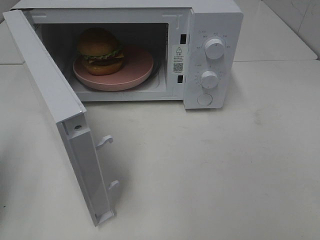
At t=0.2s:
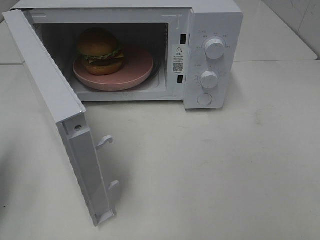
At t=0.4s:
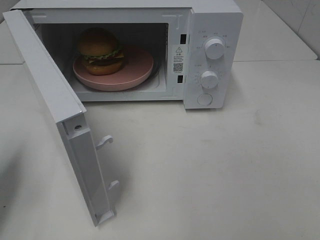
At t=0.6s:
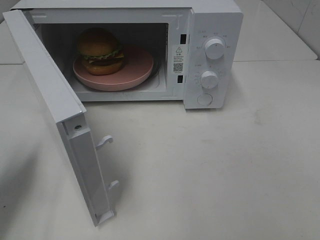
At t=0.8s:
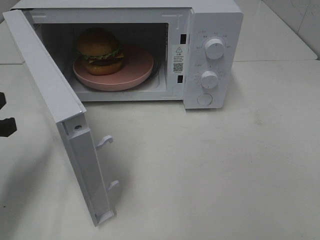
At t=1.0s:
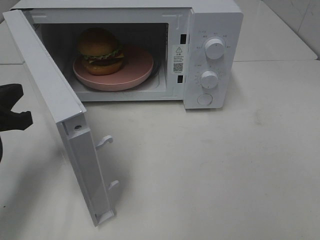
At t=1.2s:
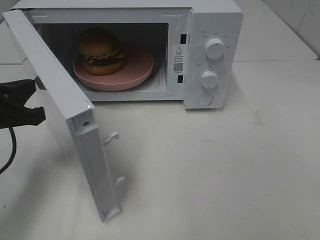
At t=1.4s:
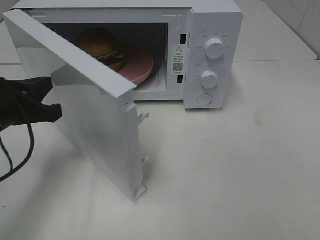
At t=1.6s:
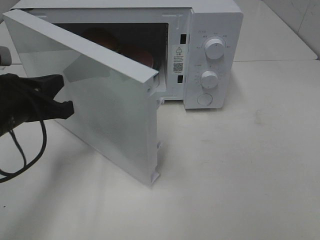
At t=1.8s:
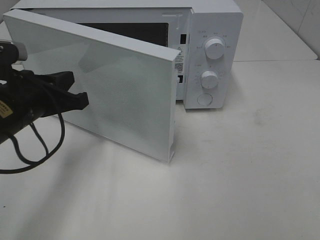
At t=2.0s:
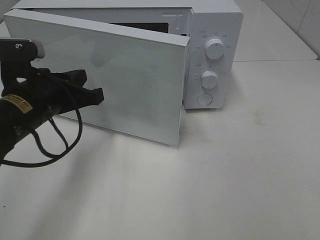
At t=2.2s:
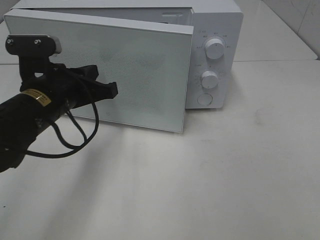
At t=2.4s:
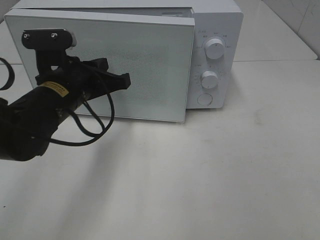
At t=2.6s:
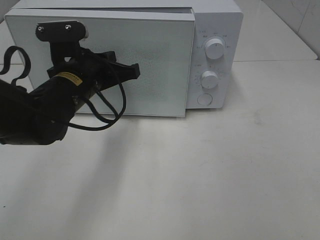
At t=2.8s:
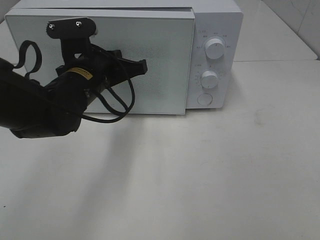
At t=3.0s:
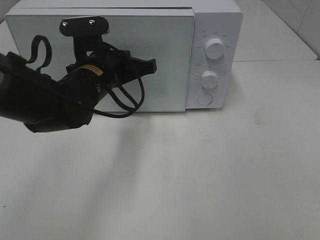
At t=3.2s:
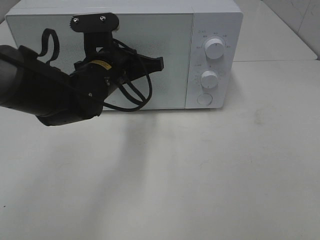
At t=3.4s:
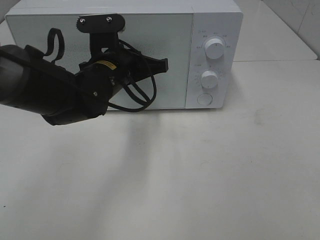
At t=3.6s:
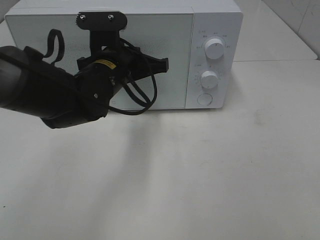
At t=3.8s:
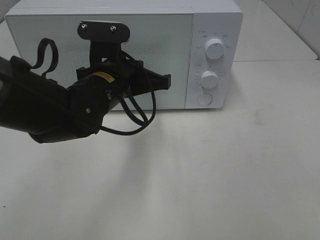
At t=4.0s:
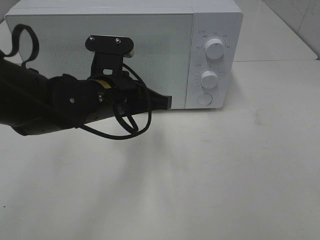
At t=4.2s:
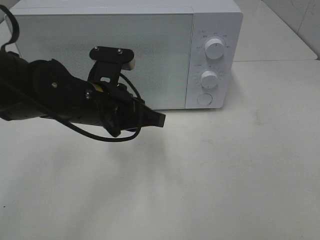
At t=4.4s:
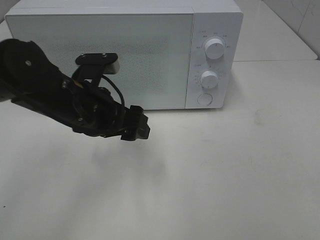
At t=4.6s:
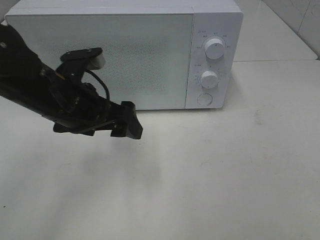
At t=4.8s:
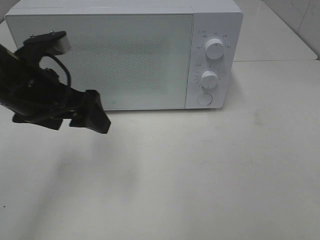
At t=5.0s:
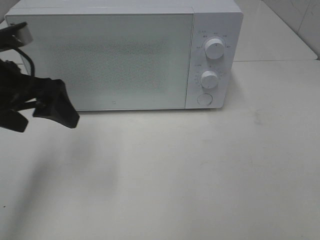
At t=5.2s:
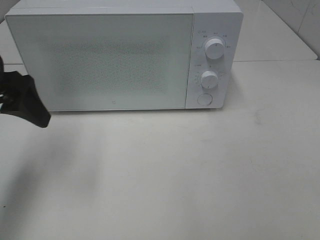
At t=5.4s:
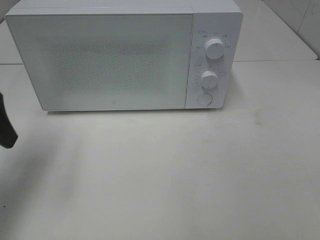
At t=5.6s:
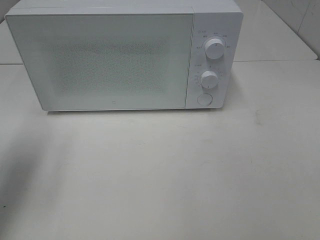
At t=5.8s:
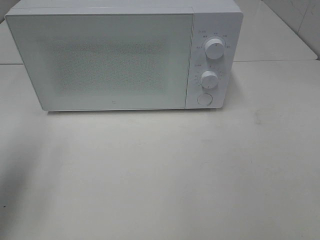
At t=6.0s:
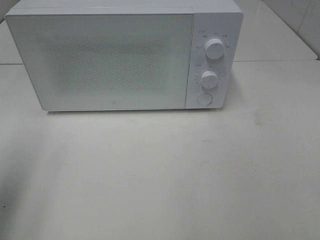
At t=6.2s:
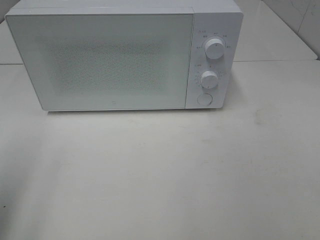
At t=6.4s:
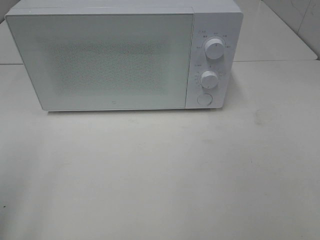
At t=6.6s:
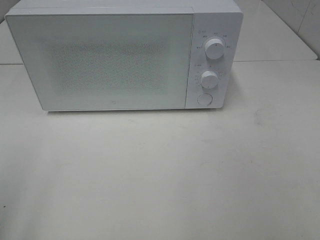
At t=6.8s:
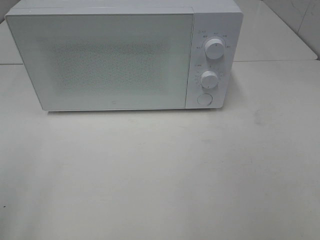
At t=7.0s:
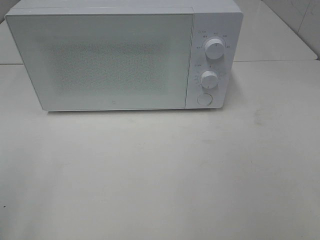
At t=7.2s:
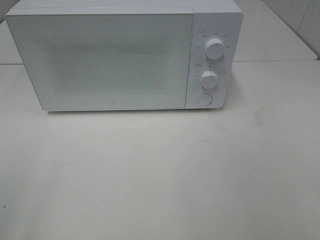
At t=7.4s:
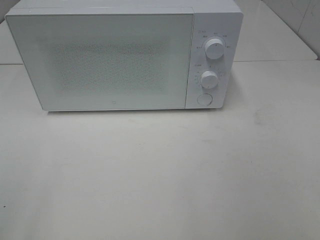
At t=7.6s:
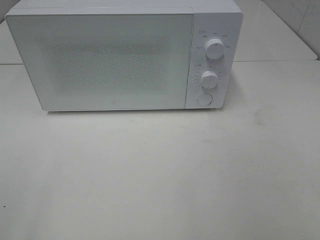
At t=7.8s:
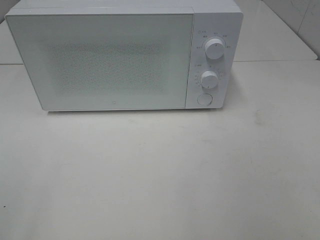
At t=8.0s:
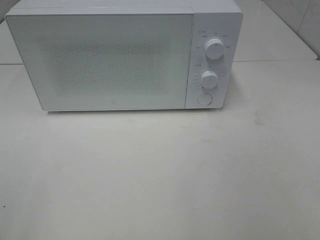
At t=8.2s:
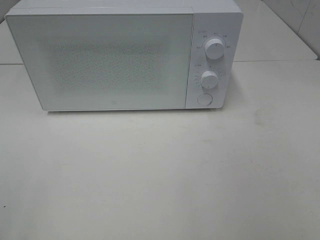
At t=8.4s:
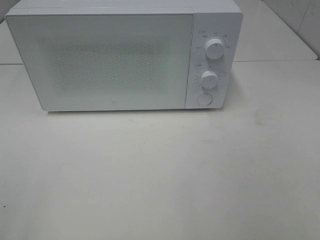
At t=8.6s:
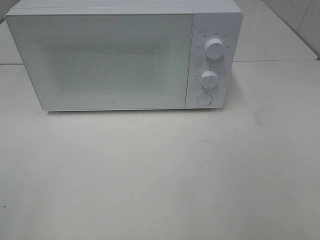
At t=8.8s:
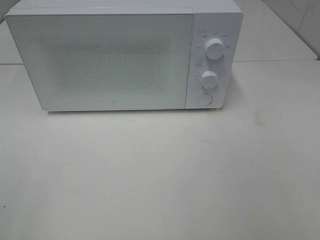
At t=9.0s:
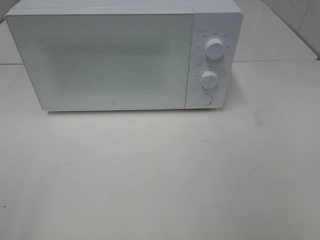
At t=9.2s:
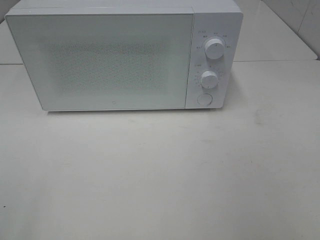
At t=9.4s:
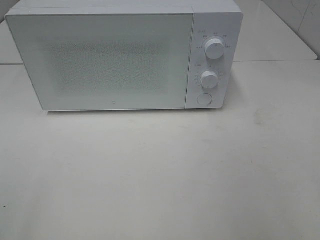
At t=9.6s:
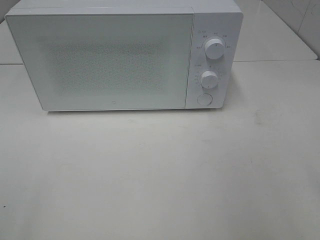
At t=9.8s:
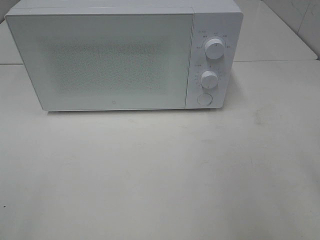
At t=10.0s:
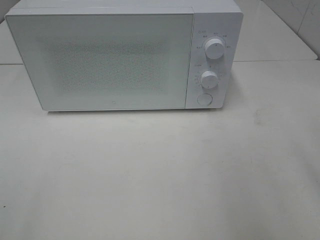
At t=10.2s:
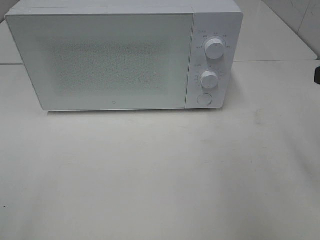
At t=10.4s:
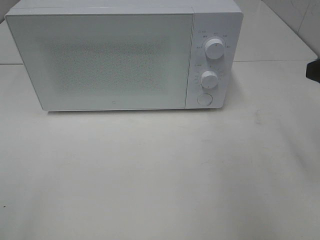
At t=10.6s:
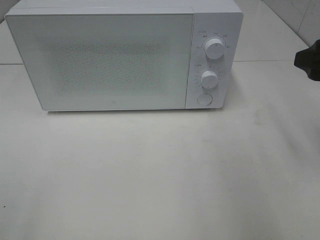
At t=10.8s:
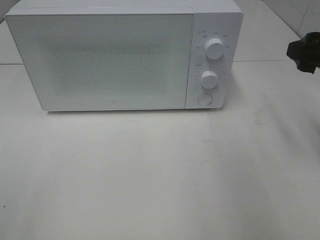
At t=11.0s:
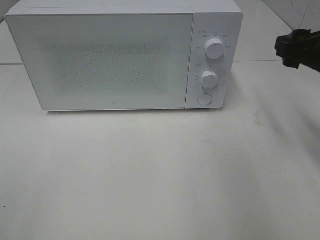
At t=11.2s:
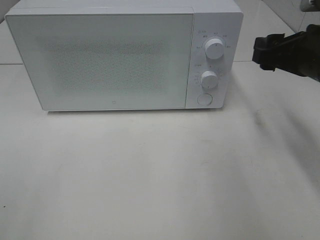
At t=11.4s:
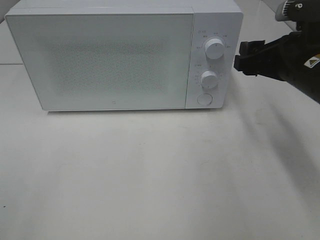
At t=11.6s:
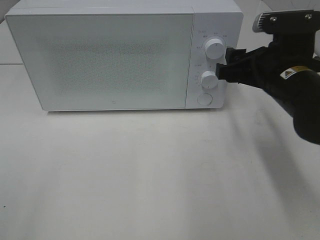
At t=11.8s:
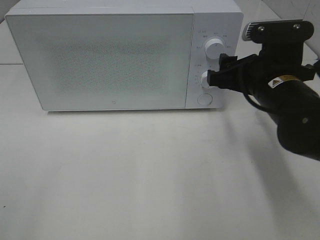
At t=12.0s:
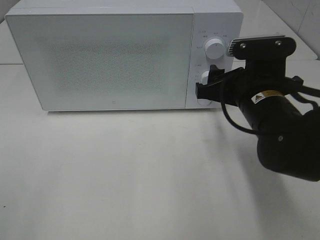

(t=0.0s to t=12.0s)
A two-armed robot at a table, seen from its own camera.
Task of the whole recording: Heat the burger.
Step, t=0.0s - t=4.2s: Left hand: close the microwave door.
t=0.0s - t=1.6s: The left gripper travels to the right, forward and downward by roughly 15 cm.
t=1.6s - t=3.0s: The left gripper moves to the right and forward, some 15 cm.
t=3.0s - t=4.4s: The left gripper is displaced backward by about 5 cm, and opens.
t=4.4s - t=6.0s: The left gripper is displaced to the left, upward and backward by some 25 cm.
t=6.0s - t=7.6s: The left gripper is displaced backward by roughly 15 cm.
t=10.4s - t=12.0s: The right gripper heads to the left, downward and forward, covering roughly 20 cm.

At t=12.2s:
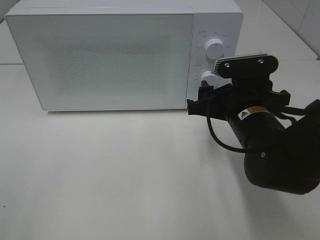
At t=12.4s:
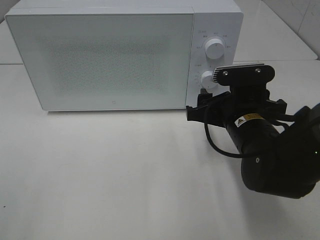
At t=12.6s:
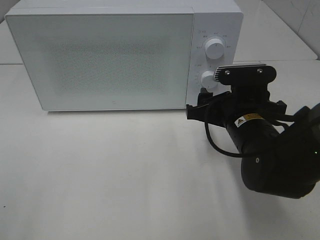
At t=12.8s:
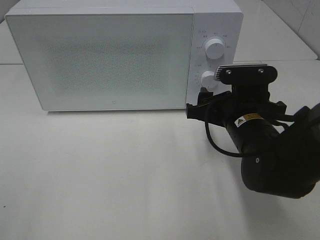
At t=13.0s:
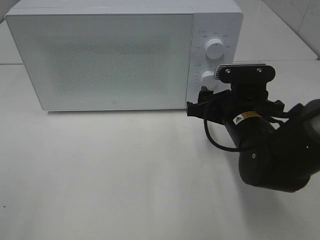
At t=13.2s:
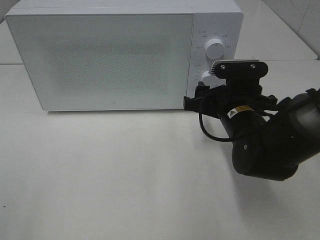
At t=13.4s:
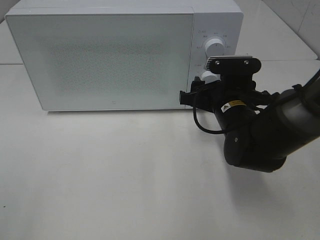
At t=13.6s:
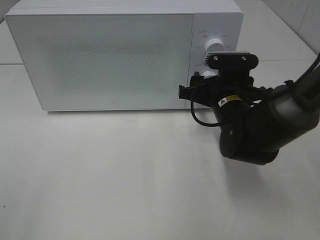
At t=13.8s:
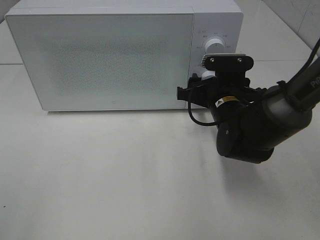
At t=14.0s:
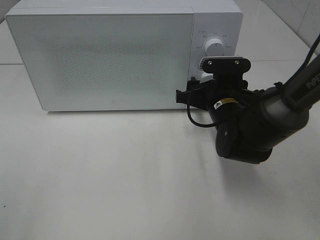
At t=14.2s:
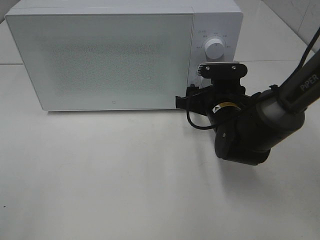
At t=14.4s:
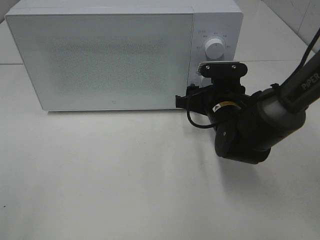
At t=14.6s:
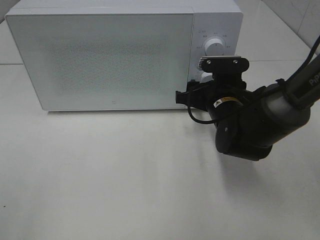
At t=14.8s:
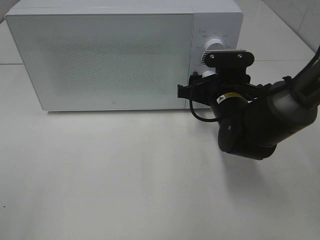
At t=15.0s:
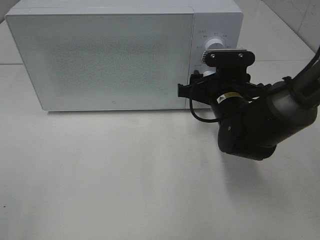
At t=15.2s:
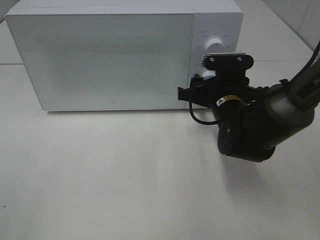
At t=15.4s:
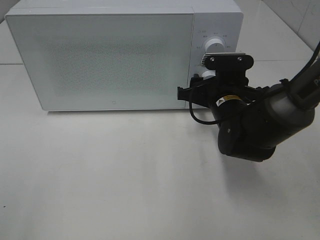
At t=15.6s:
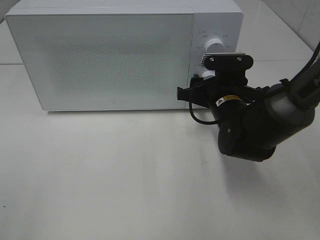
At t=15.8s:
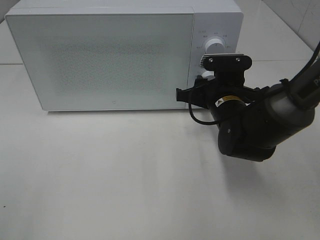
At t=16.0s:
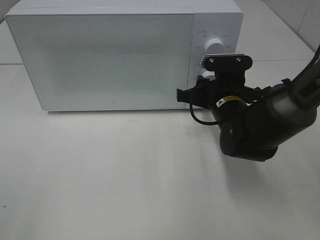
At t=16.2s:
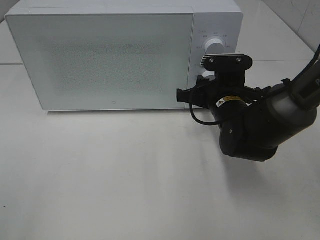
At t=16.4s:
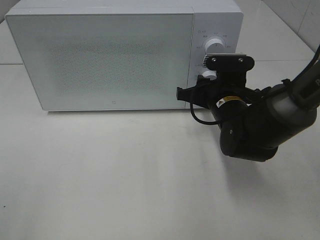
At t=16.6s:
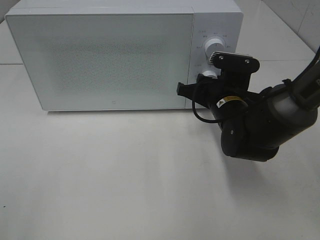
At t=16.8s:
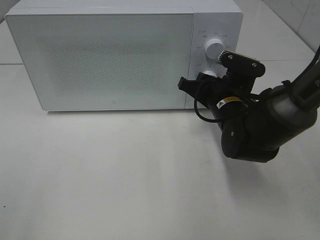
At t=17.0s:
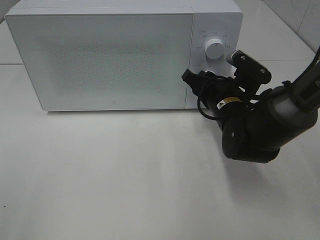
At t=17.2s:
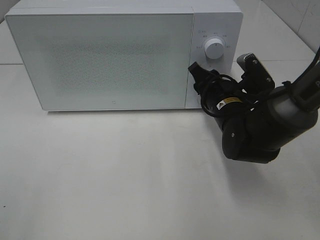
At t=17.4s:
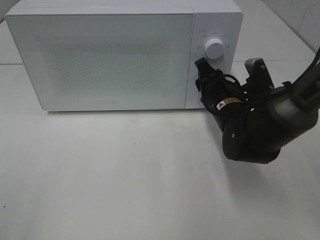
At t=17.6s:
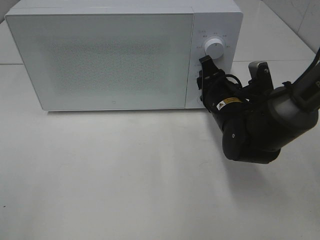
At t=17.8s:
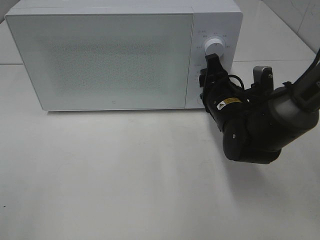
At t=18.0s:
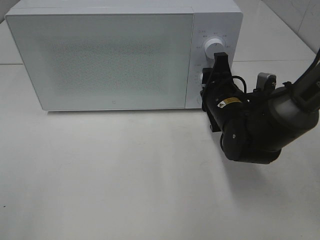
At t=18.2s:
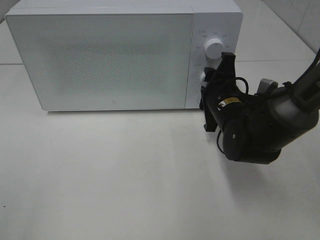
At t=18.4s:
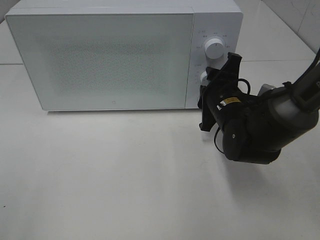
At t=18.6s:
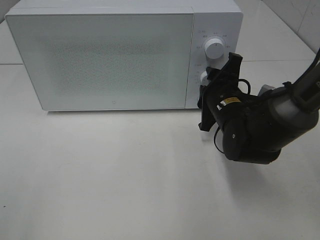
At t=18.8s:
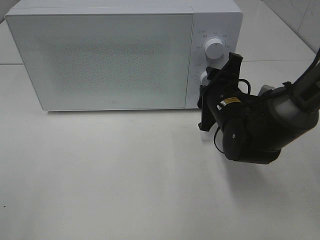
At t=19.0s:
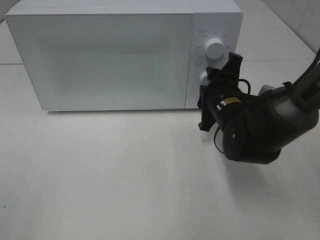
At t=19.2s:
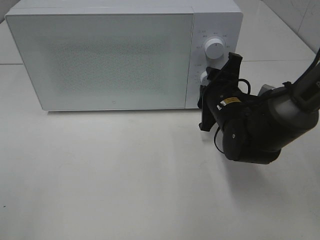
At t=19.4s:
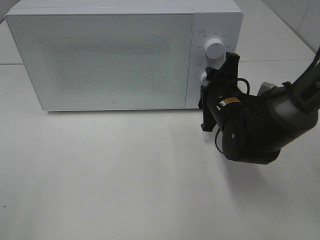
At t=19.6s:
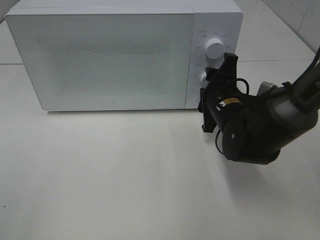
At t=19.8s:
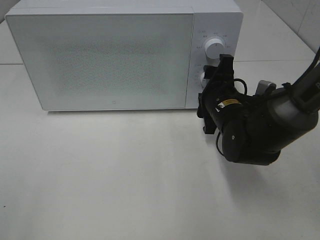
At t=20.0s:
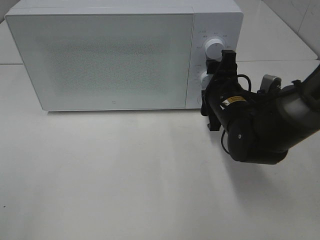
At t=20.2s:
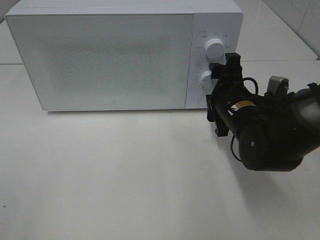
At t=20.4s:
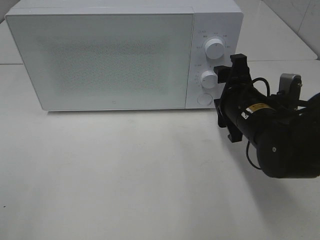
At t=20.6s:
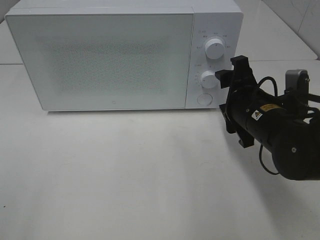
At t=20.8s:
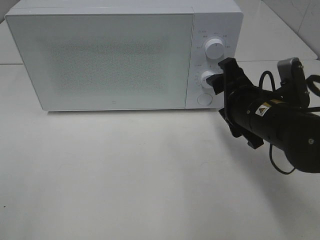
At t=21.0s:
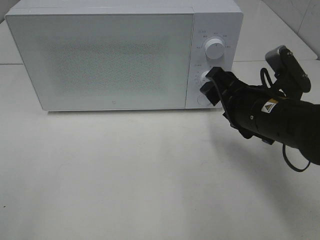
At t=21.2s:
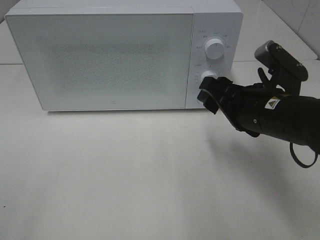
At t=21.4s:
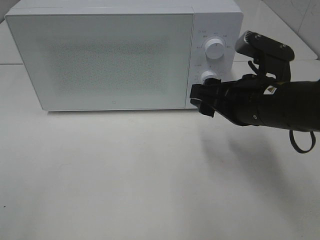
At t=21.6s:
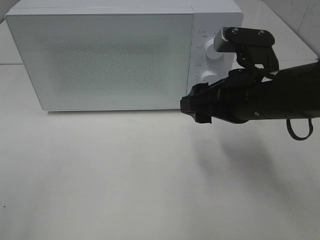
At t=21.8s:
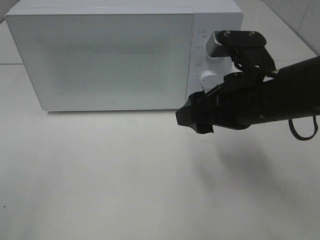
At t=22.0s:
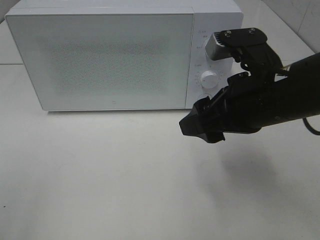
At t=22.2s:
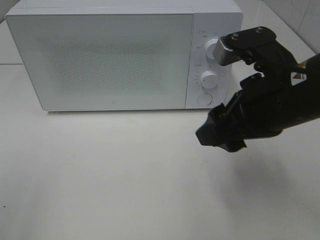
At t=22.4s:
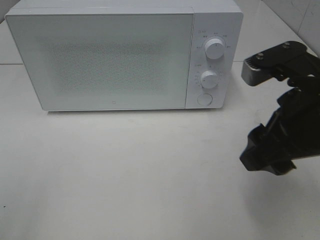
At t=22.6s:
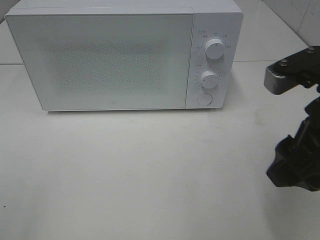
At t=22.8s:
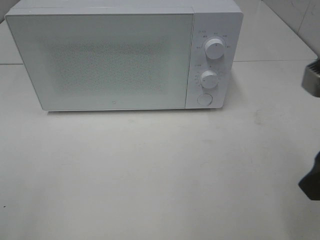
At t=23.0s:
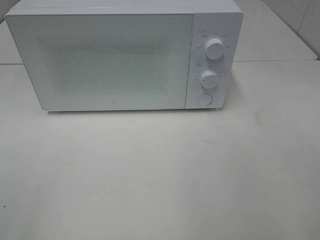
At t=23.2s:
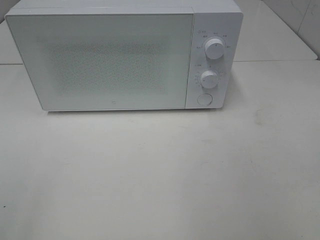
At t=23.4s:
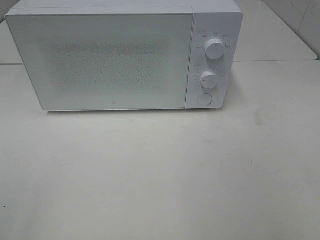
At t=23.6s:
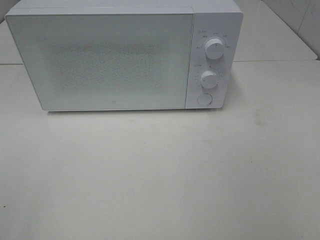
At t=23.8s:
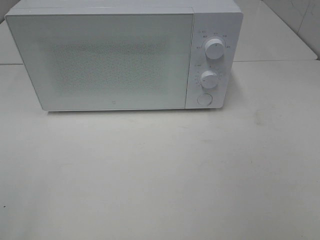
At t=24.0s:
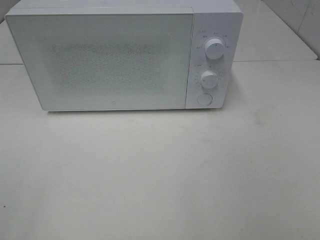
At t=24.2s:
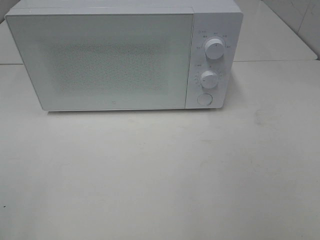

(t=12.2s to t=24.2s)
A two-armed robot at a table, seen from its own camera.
Task of the whole recording: Heat the burger.
Step, t=12.2s - t=20.0s: Right hand: twist timer button.
t=12.2s - t=13.8s: The right gripper is displaced forward by approximately 5 cm.
t=13.8s - t=16.6s: The grippers make only small movements.
t=18.2s - t=19.8s: The grippers move only a little.
t=19.8s - t=21.2s: The right gripper goes some 10 cm backward and upward.
t=21.2s - t=22.6s: The right gripper travels backward and upward by approximately 10 cm.
t=22.6s - t=24.2s: The right gripper heads backward and to the right, covering about 20 cm.
